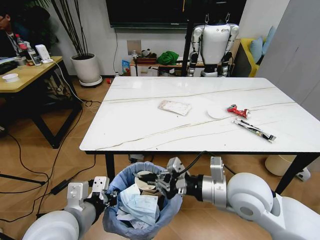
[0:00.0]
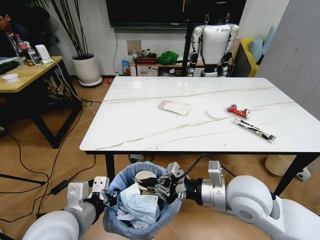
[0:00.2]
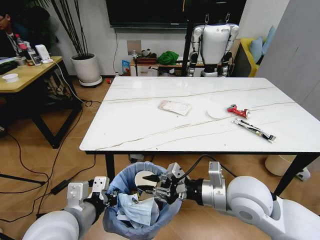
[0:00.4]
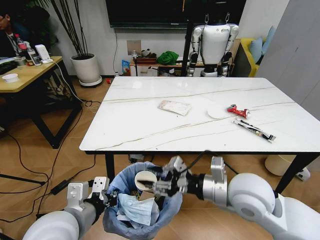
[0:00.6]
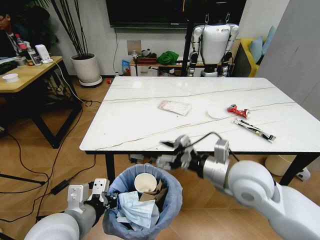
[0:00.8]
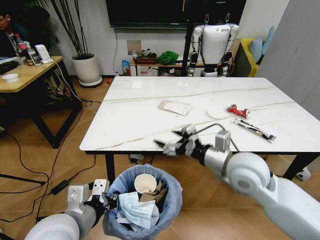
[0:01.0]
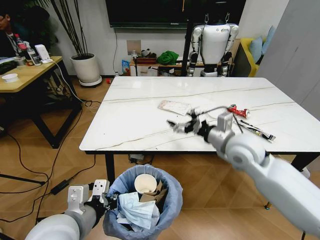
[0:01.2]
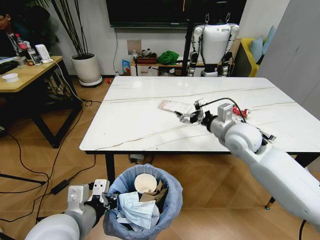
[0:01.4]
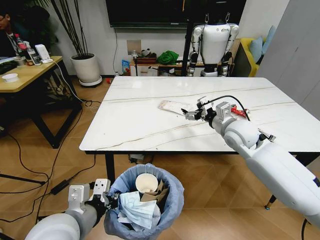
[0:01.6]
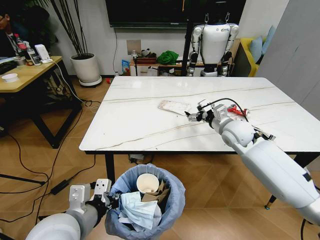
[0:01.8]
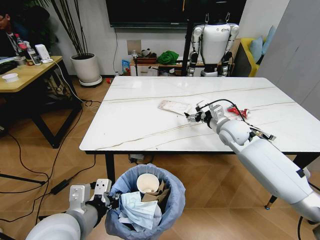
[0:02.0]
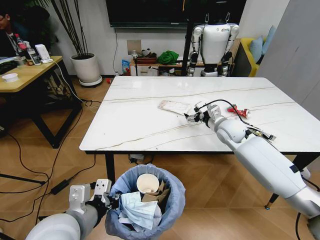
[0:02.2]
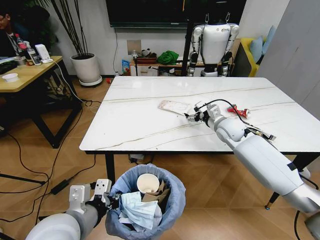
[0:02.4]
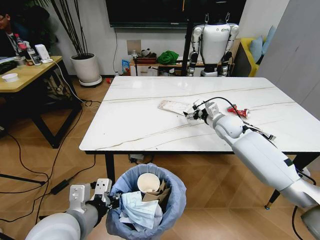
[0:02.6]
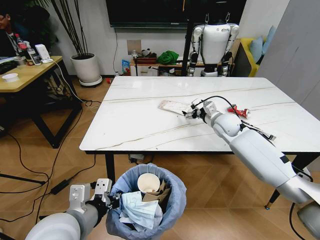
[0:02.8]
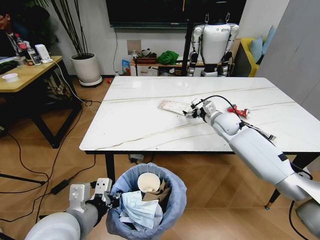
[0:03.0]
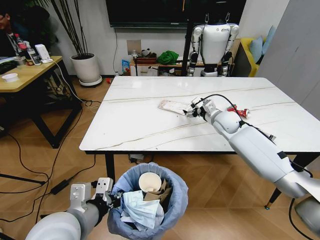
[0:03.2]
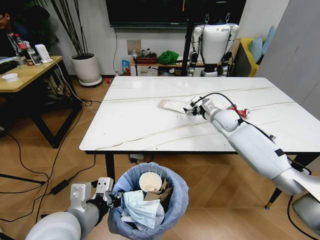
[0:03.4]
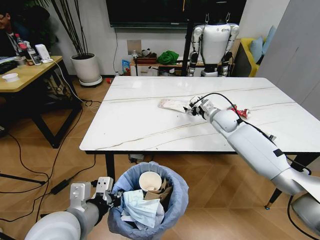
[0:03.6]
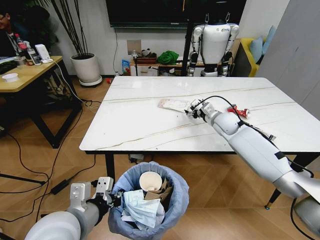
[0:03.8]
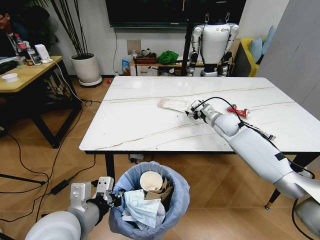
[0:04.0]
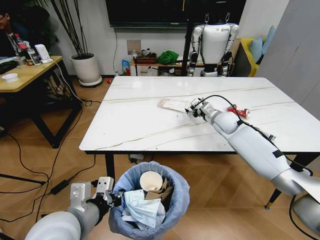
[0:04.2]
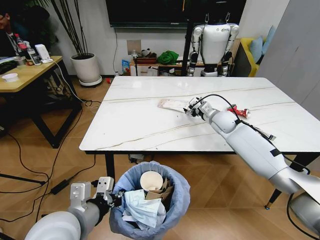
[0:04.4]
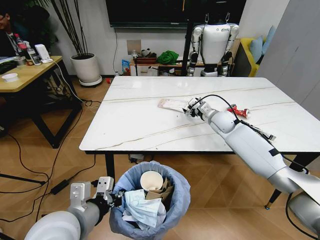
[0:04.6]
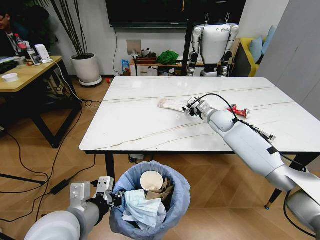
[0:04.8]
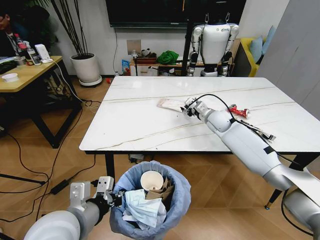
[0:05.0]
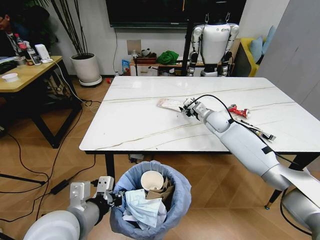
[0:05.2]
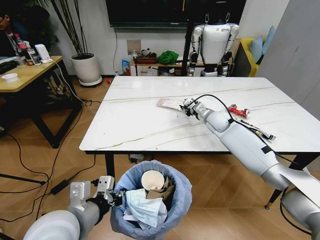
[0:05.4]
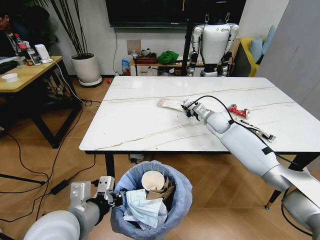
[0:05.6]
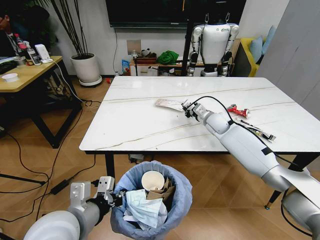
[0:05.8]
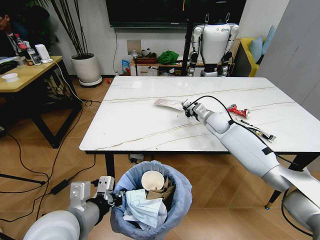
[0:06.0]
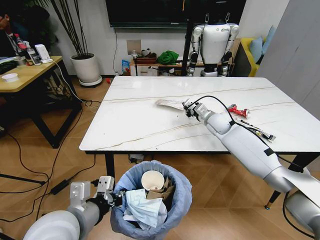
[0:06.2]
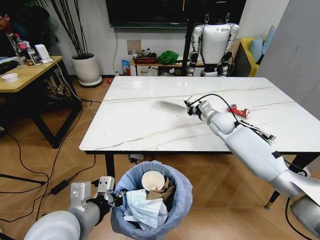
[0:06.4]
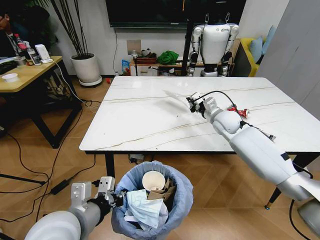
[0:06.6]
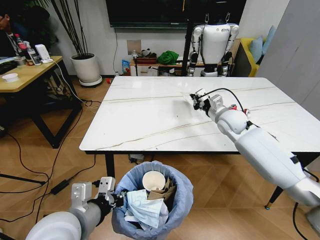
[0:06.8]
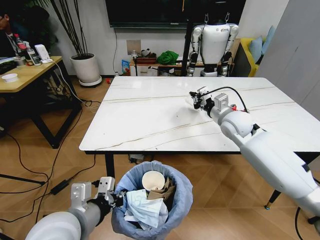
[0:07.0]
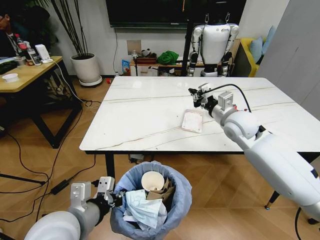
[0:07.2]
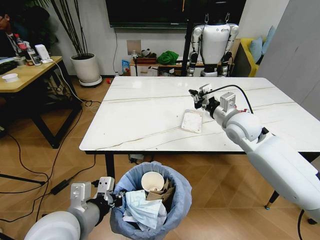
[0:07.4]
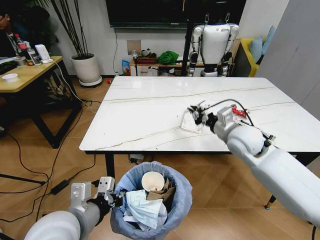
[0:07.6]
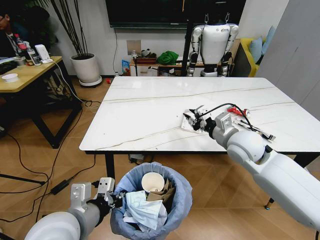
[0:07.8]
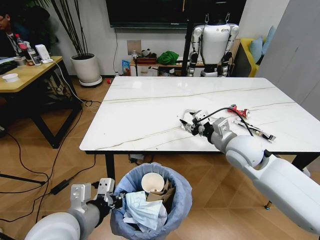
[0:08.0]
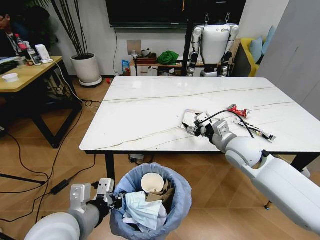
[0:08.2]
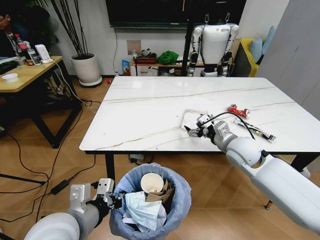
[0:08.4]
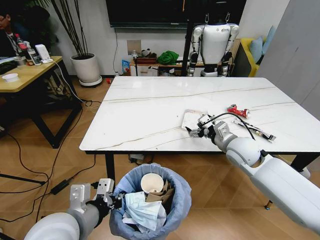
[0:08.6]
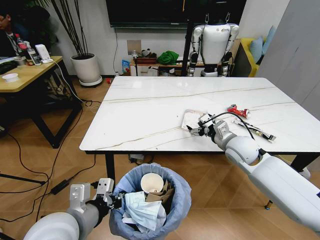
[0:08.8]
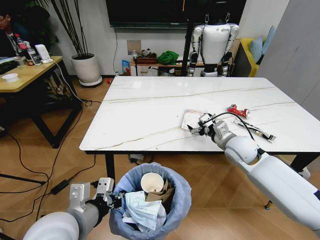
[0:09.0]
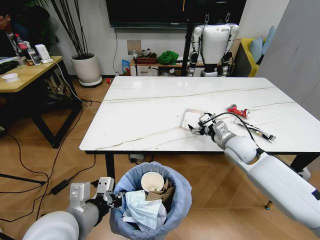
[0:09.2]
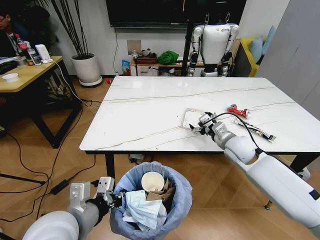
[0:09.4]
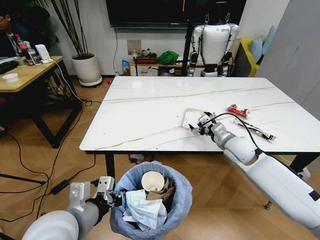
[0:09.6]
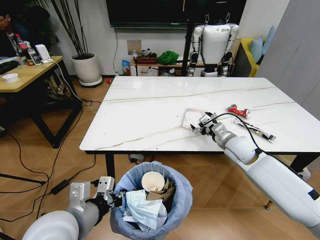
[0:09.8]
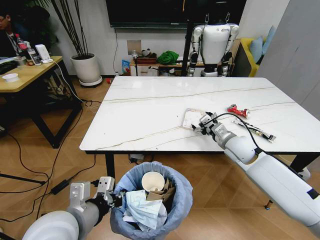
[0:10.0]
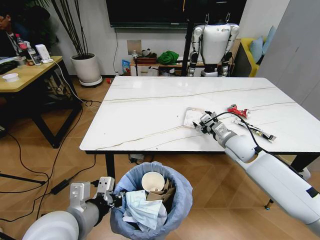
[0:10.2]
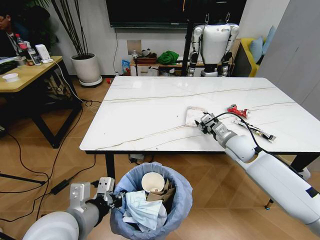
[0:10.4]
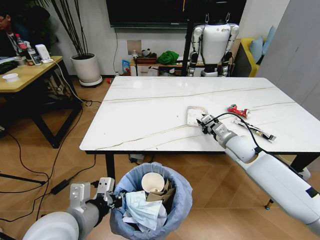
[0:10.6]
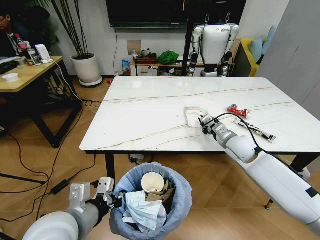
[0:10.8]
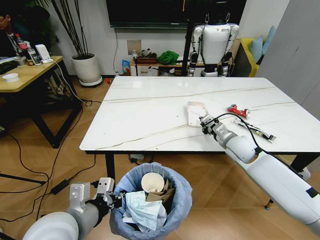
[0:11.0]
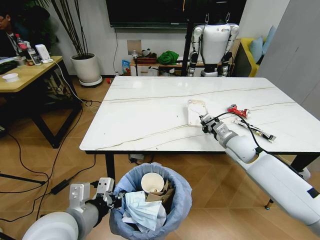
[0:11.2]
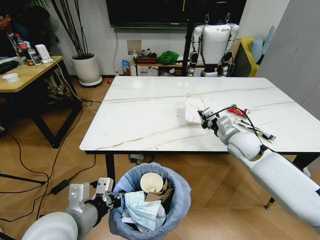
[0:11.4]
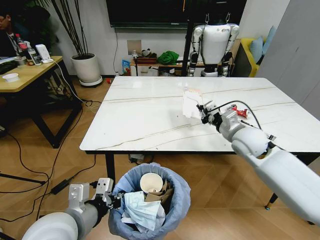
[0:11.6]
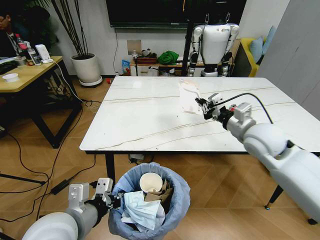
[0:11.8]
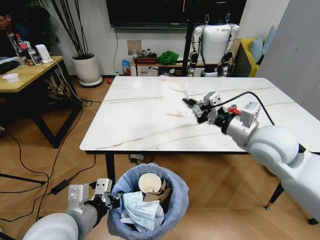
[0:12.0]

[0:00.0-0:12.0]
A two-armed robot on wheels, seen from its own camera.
Task of the whole recording: Pick up the trash bin and place the trash from the table into it.
0:00.0 to 0:01.6: The right gripper goes approximately 20 cm forward, and opens up.
0:01.6 to 0:03.0: The right gripper is displaced forward and downward by some 10 cm.
0:03.0 to 0:04.4: The grippers stay close to where they were, moving slightly.
0:04.4 to 0:06.0: The right gripper closes up.
0:06.0 to 0:07.6: The right gripper shifts approximately 20 cm backward and upward.
0:07.6 to 0:09.0: The right gripper shifts approximately 5 cm downward, and opens.
0:09.0 to 0:10.4: The right gripper closes.
0:10.4 to 0:12.0: The right gripper shifts some 20 cm upward and backward, and closes up.

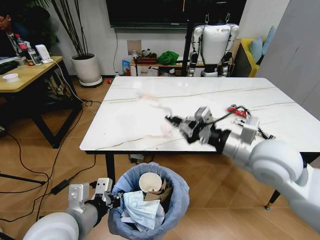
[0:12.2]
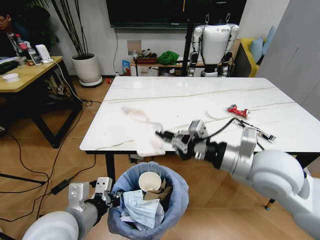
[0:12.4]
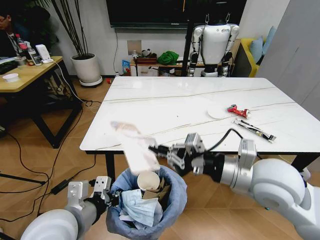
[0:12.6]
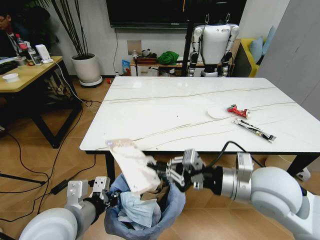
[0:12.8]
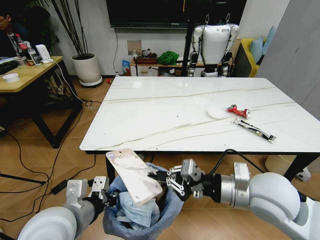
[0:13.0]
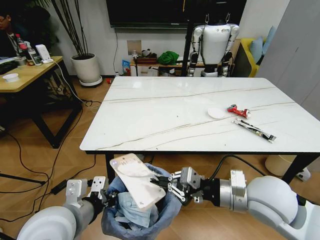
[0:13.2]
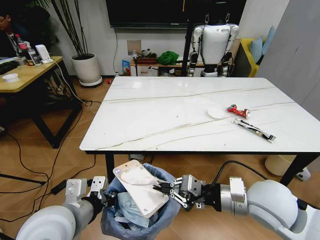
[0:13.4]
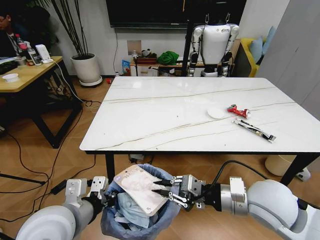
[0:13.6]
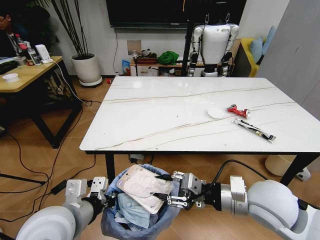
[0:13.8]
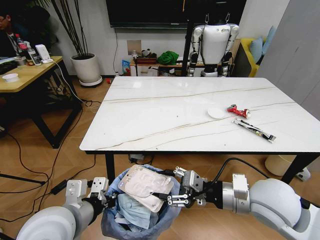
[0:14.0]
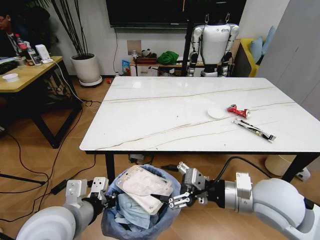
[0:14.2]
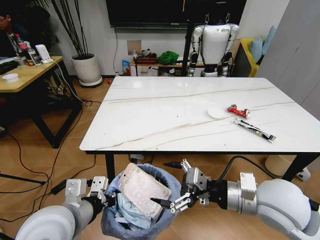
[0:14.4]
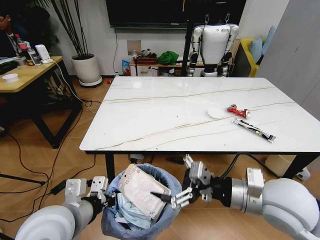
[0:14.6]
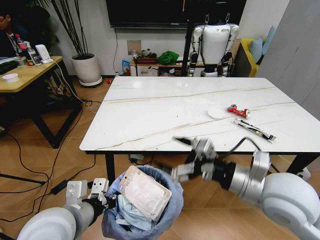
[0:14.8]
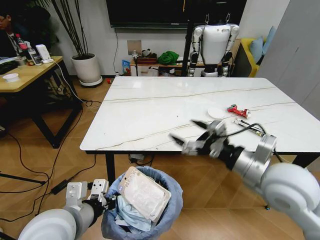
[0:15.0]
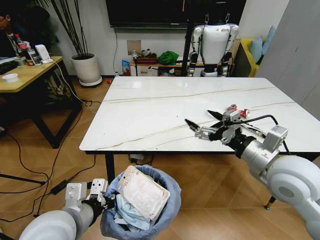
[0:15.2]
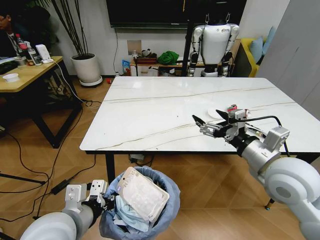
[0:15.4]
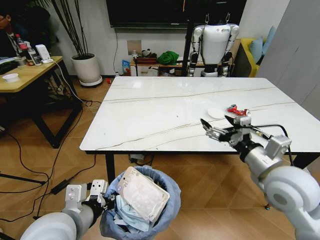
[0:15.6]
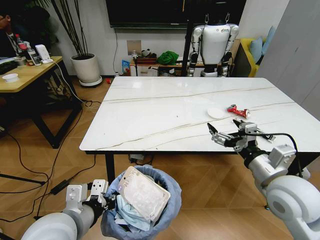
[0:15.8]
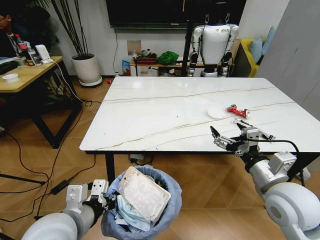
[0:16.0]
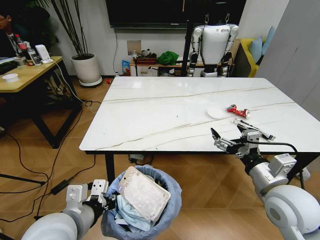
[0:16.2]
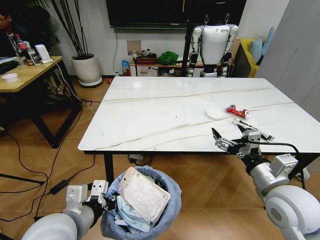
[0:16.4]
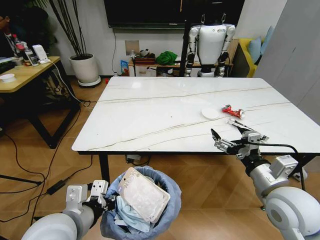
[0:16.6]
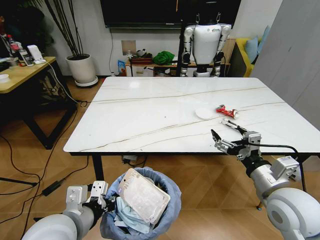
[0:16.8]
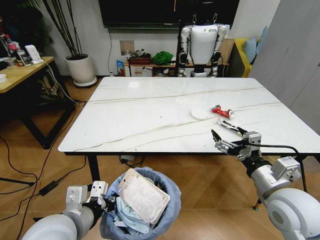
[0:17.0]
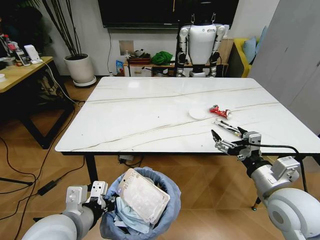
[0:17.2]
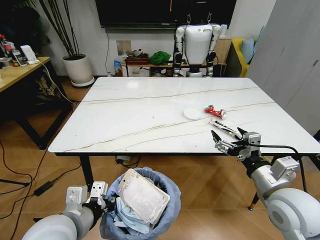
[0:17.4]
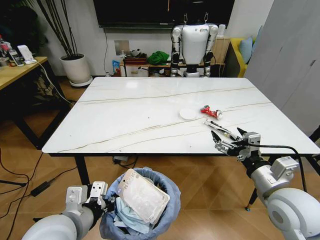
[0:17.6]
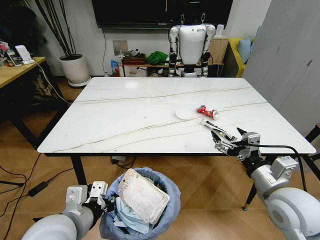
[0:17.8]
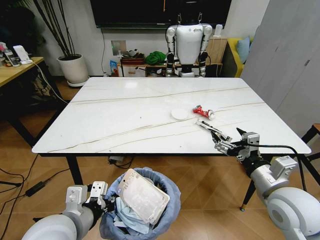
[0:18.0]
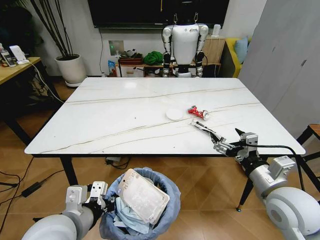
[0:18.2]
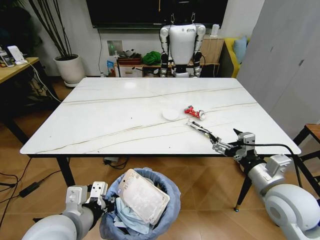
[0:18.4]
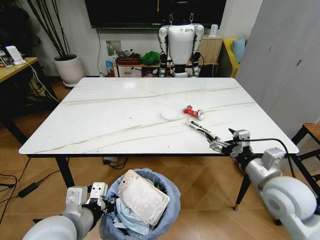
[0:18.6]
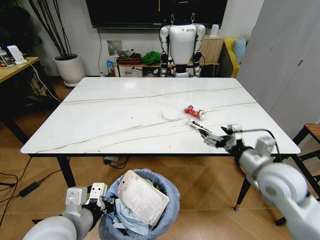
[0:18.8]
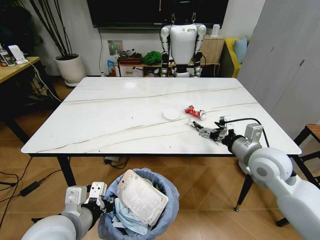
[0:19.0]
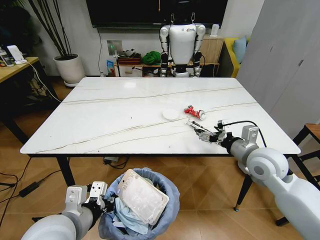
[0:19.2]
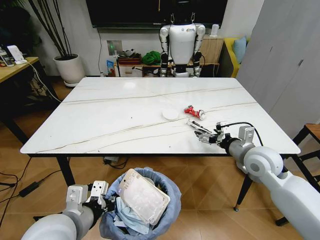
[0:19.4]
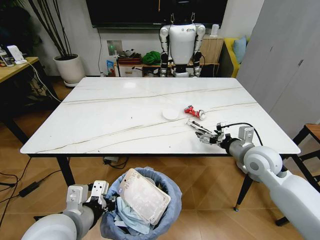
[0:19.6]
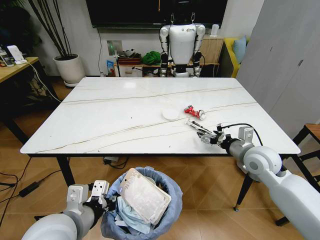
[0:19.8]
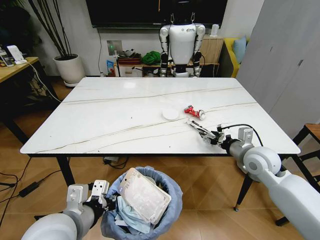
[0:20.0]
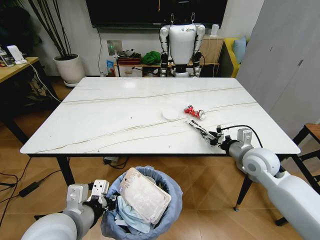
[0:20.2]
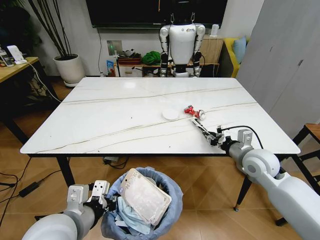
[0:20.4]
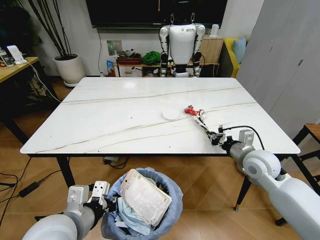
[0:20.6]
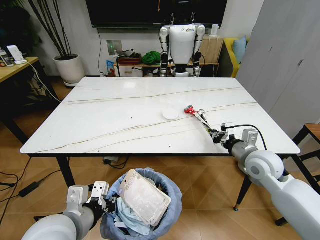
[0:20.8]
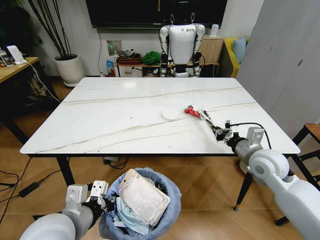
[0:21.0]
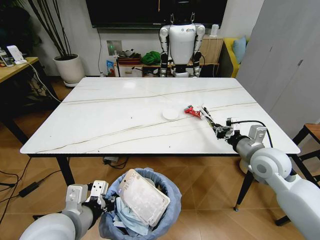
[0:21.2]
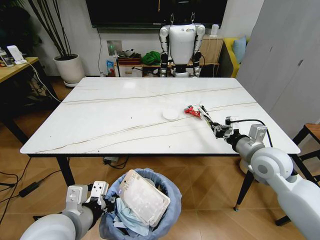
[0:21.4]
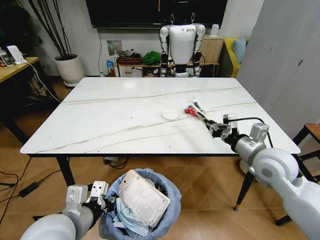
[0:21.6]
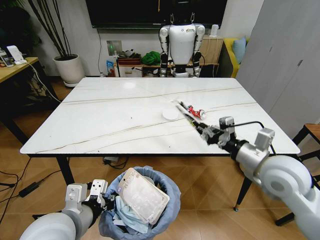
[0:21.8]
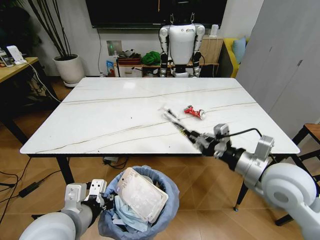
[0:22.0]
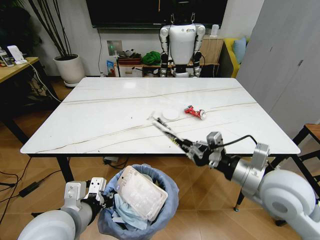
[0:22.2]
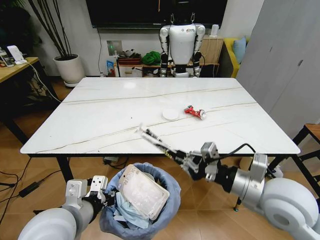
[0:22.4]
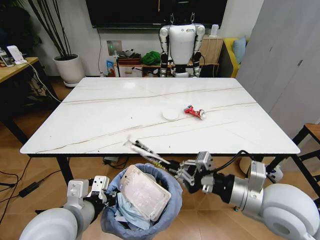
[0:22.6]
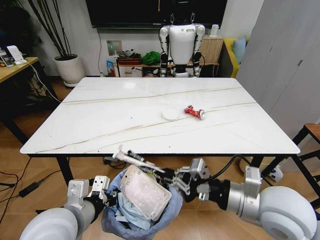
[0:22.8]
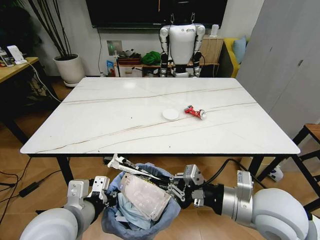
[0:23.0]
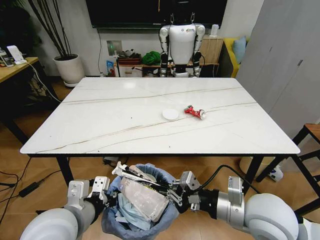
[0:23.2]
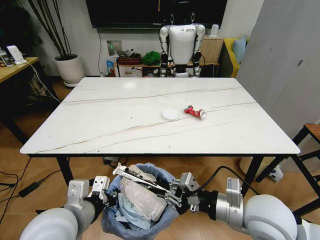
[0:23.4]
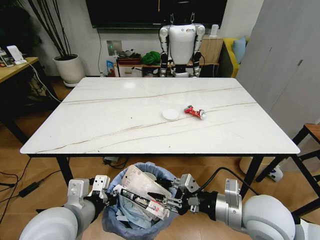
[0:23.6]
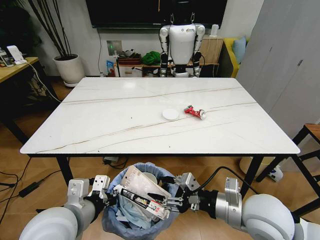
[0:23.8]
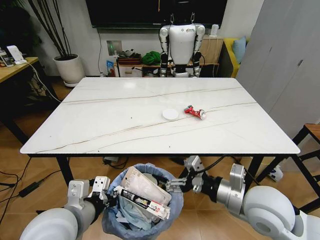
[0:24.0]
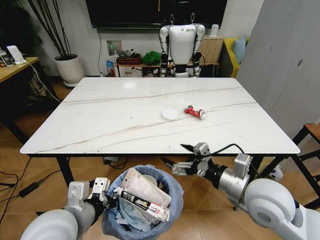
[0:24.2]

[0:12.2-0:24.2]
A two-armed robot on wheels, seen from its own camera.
Task of the whole recording: Pick up the trash bin and place the trash from the table into it.
0:12.2 to 0:13.8: The right gripper shifts approximately 10 cm downward and backward, and opens up.
0:13.8 to 0:15.2: The right gripper goes roughly 5 cm upward, and opens up.
0:15.2 to 0:16.6: The right gripper heads downward, covering some 5 cm.
0:18.2 to 0:19.8: The right gripper travels forward by approximately 15 cm.
0:19.8 to 0:21.2: The right gripper closes.
0:21.2 to 0:22.6: The right gripper heads backward and to the left, covering roughly 15 cm.
0:22.6 to 0:24.2: The right gripper opens its fingers.
